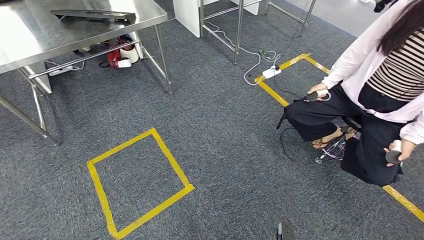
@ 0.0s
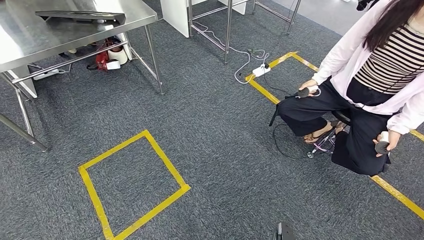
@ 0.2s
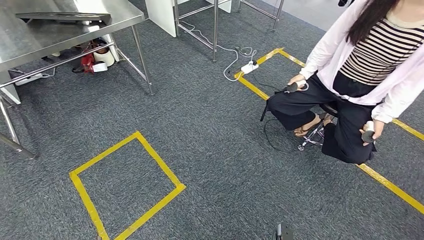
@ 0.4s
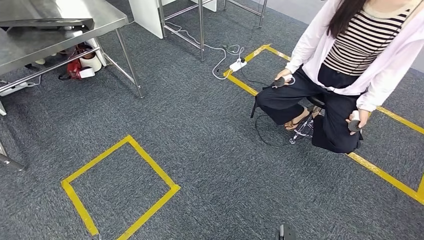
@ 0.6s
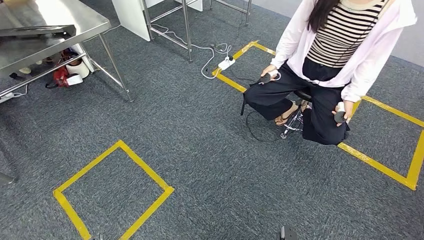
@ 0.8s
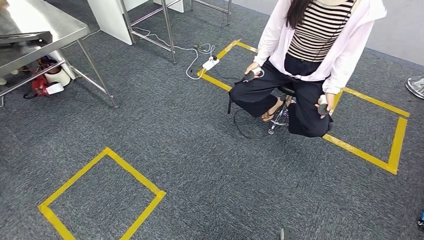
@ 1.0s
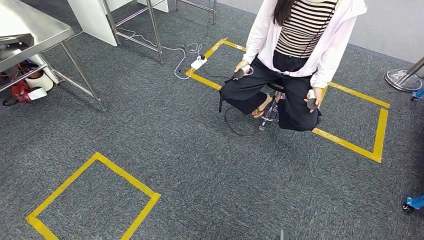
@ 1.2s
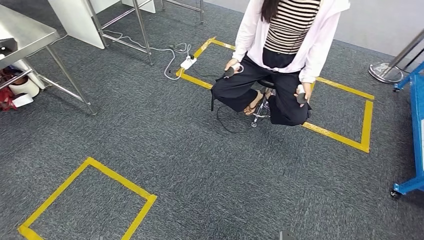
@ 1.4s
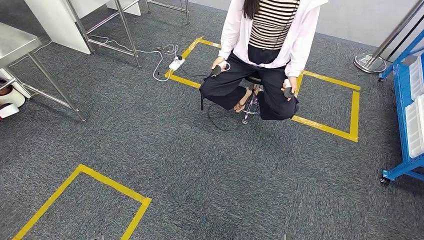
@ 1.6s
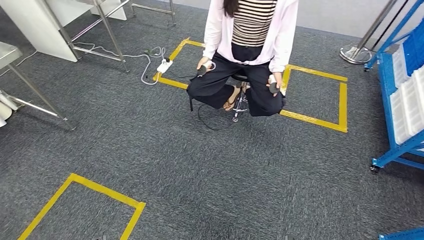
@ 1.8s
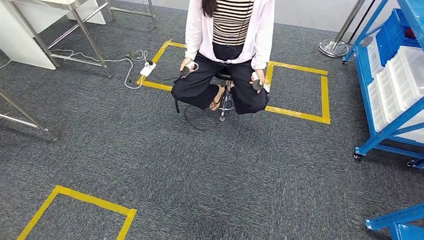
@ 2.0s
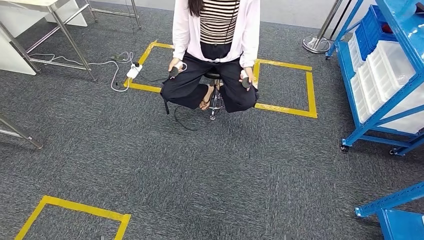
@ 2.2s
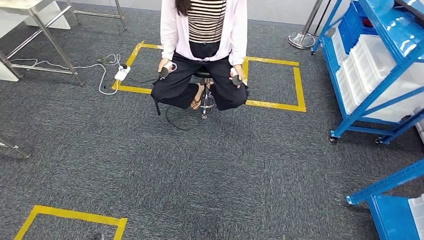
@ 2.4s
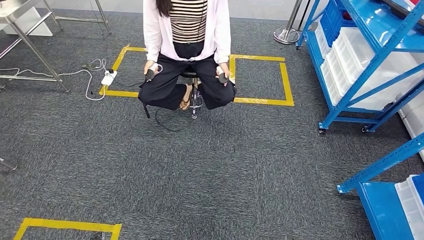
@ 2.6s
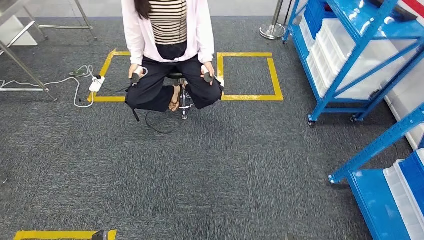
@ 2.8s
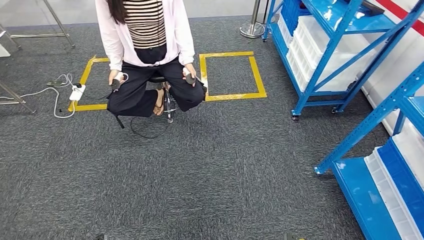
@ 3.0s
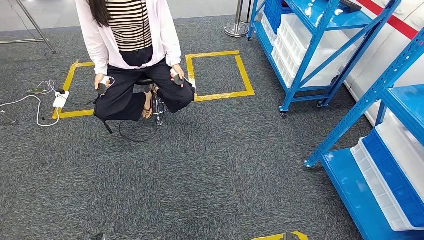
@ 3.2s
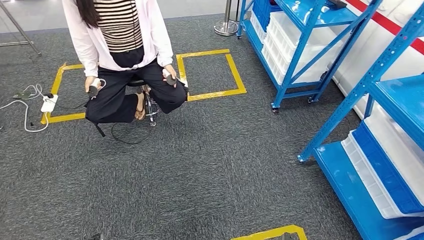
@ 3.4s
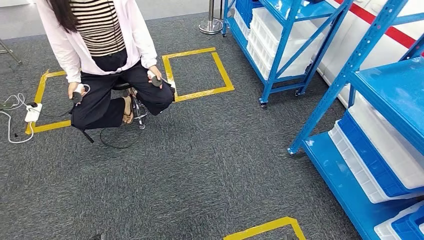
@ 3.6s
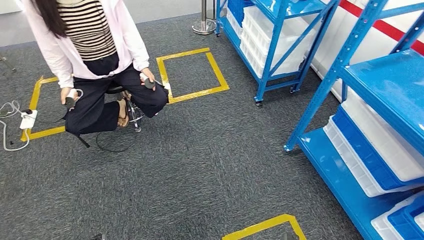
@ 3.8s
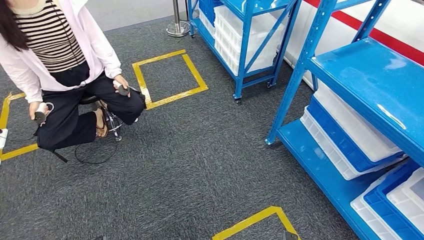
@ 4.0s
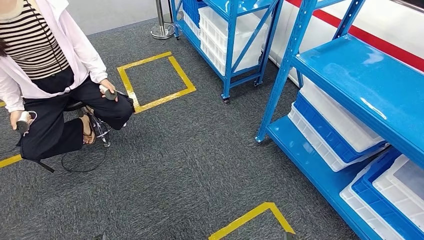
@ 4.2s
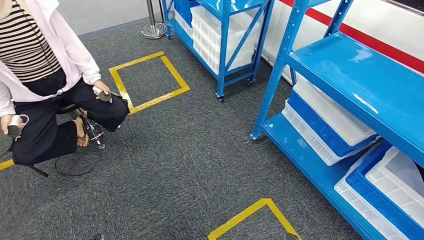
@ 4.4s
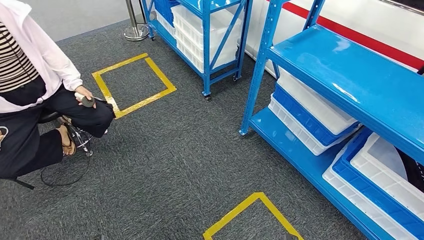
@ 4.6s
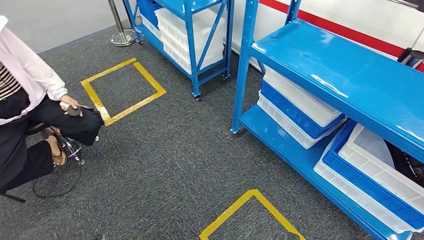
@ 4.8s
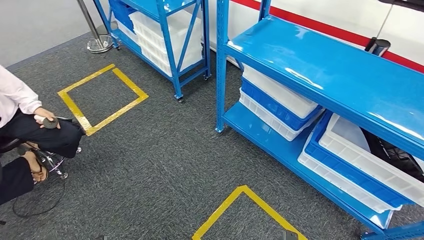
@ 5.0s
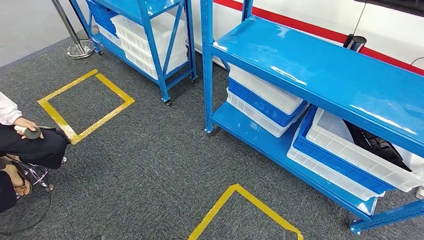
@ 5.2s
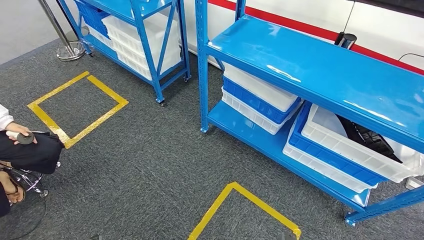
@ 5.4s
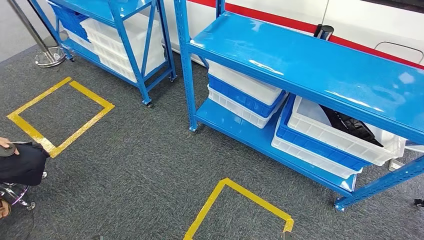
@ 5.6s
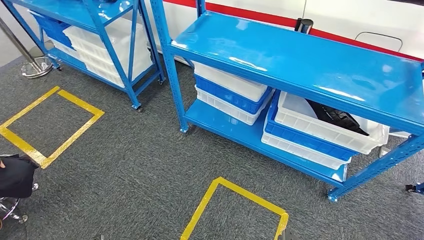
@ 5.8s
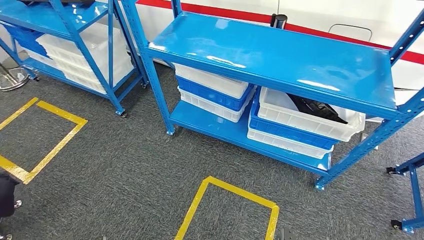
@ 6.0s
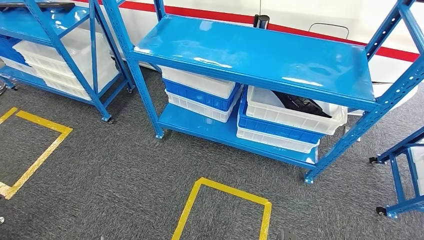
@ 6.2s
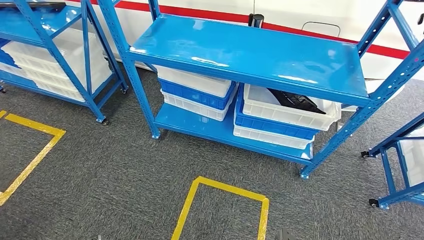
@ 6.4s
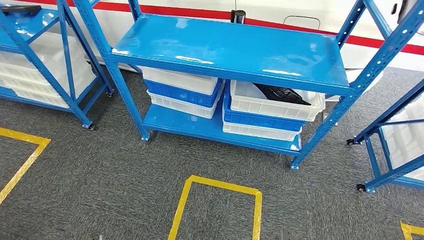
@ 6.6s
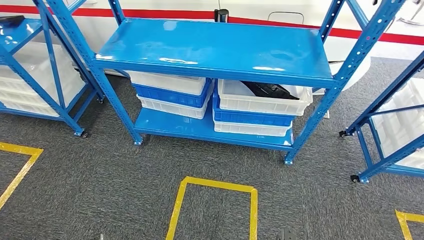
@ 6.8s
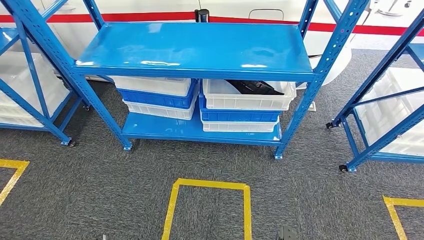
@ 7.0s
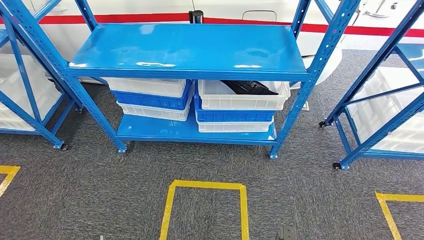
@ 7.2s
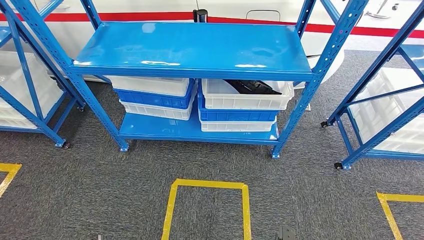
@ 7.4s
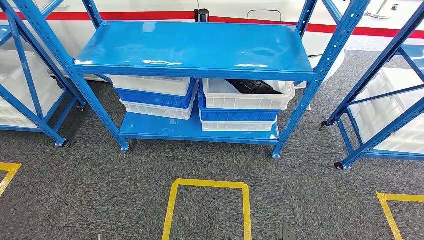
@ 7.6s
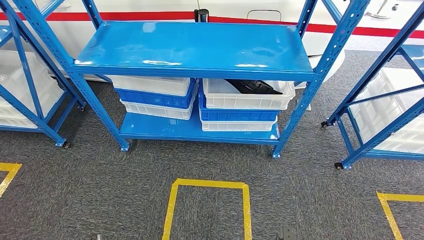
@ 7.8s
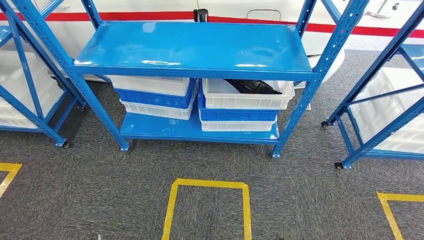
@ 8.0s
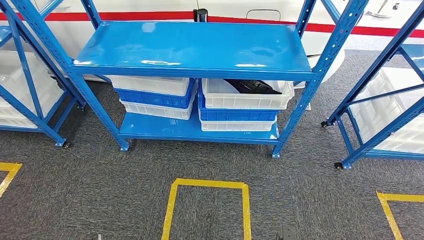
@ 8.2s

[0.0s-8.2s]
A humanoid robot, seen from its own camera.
Step, 0.0s to 8.2s: Move to the initial position of the shelf.

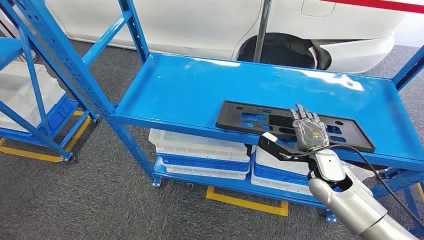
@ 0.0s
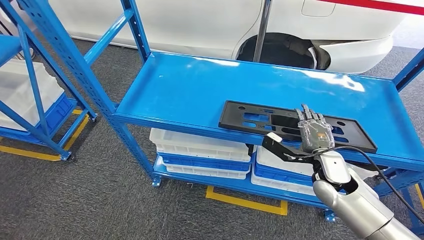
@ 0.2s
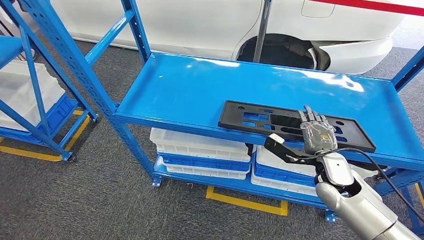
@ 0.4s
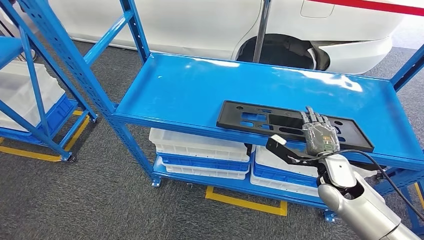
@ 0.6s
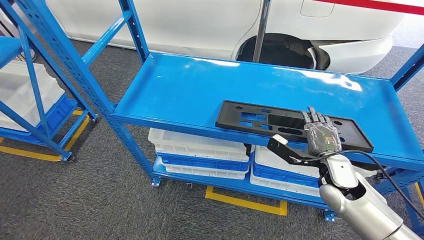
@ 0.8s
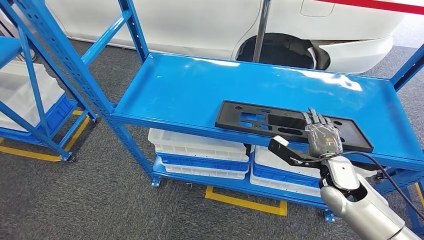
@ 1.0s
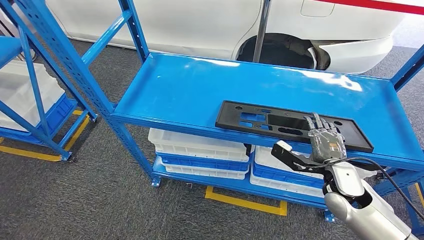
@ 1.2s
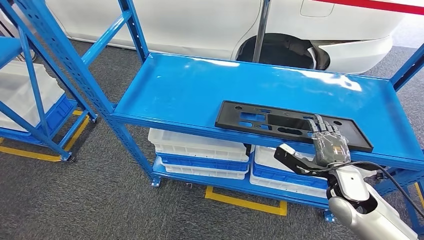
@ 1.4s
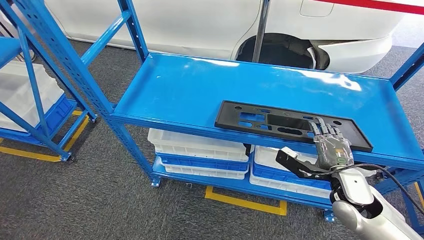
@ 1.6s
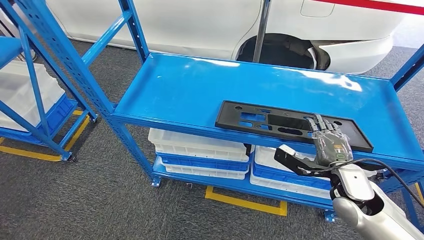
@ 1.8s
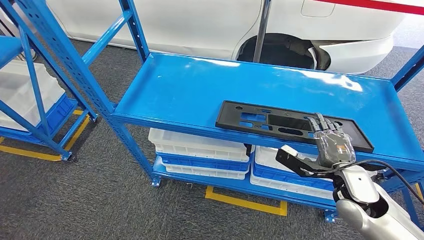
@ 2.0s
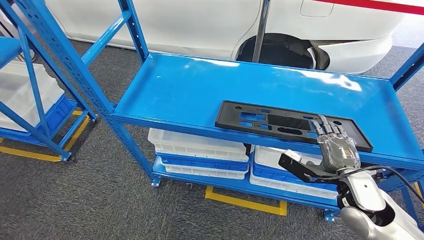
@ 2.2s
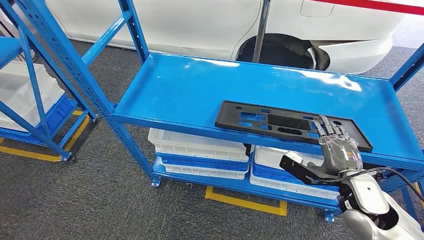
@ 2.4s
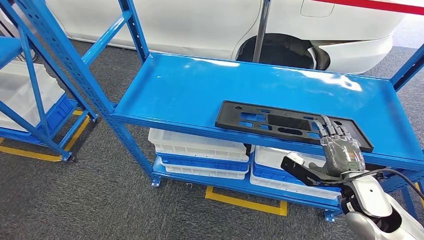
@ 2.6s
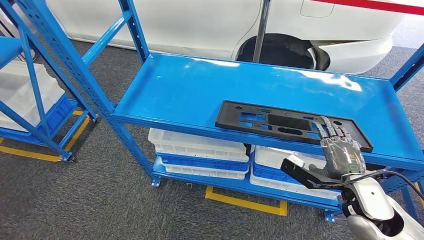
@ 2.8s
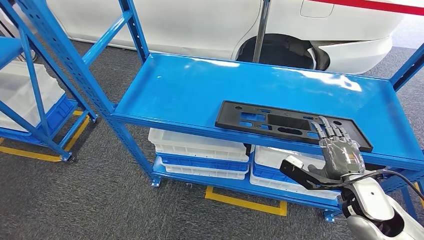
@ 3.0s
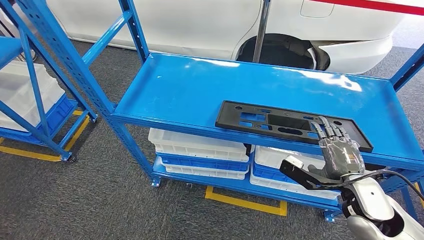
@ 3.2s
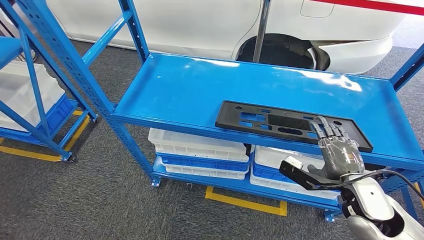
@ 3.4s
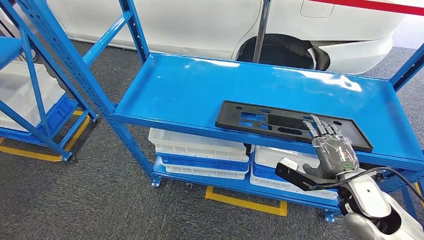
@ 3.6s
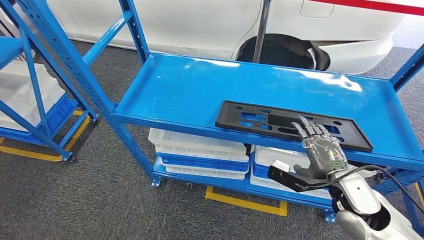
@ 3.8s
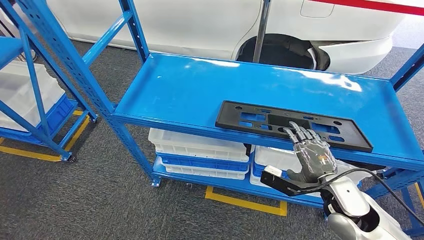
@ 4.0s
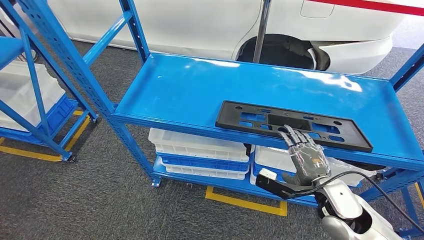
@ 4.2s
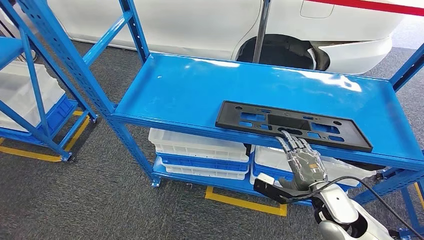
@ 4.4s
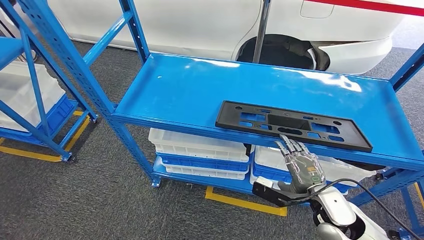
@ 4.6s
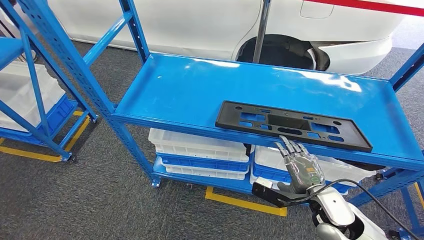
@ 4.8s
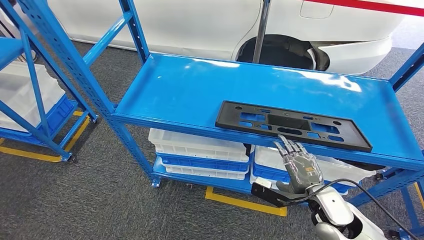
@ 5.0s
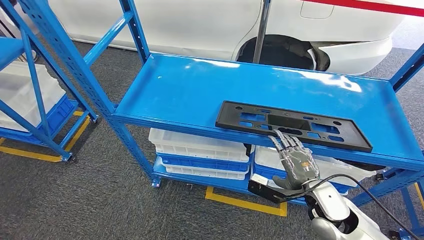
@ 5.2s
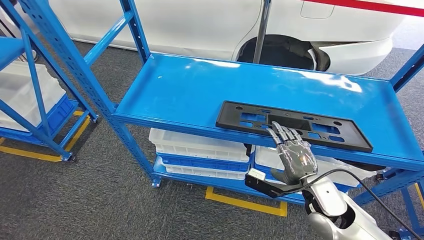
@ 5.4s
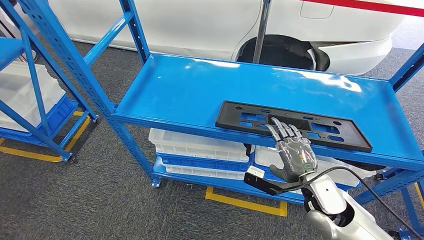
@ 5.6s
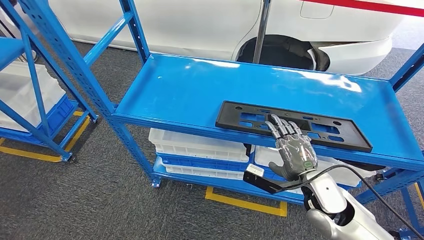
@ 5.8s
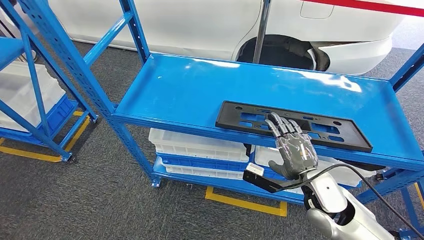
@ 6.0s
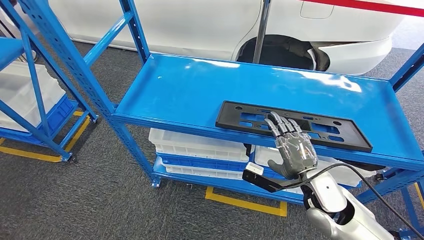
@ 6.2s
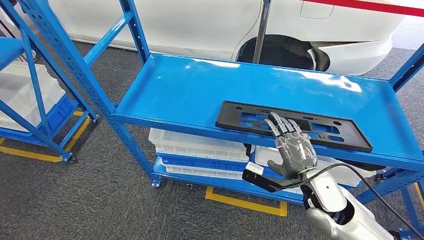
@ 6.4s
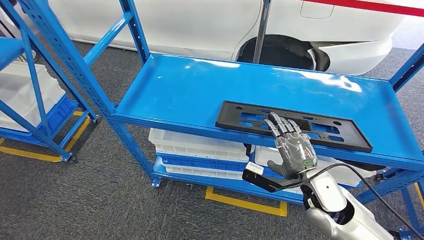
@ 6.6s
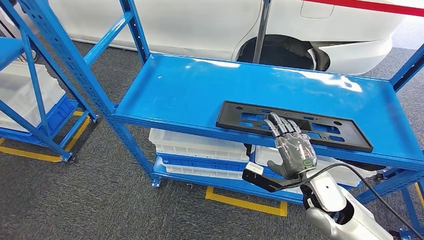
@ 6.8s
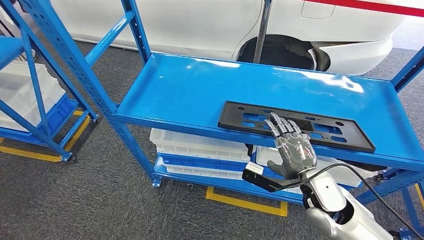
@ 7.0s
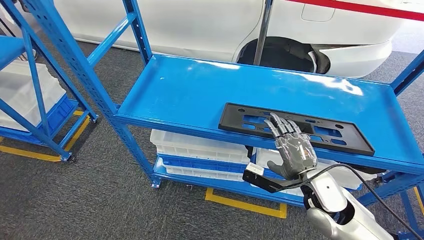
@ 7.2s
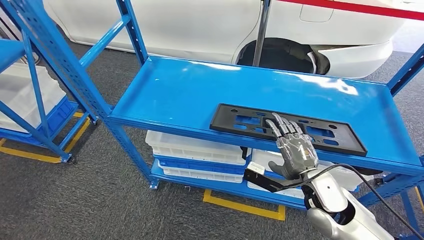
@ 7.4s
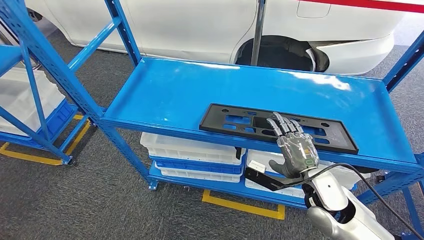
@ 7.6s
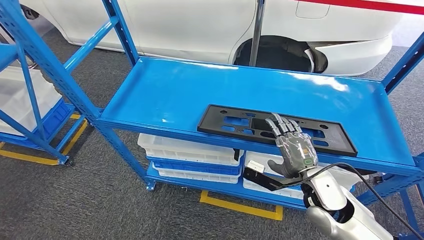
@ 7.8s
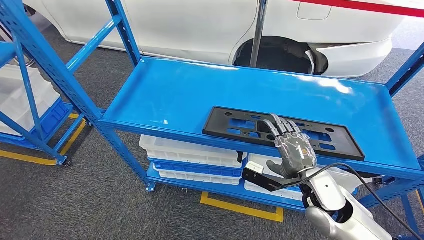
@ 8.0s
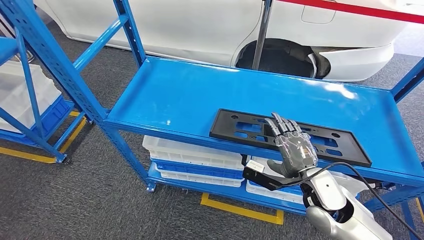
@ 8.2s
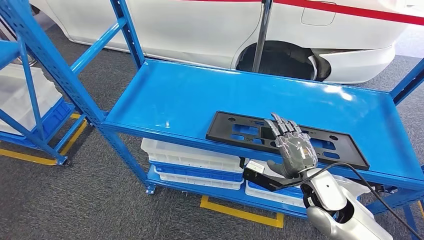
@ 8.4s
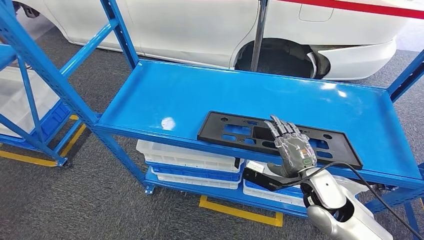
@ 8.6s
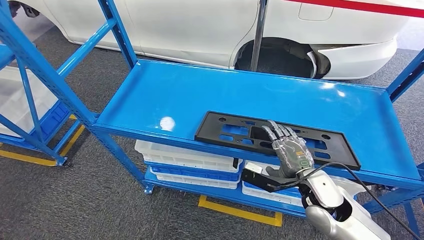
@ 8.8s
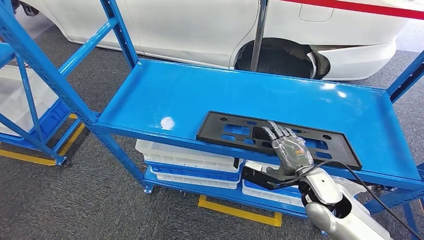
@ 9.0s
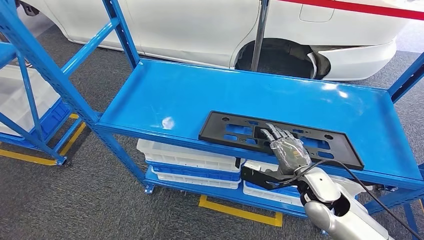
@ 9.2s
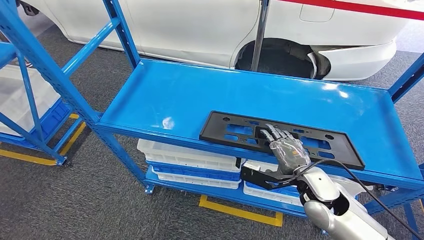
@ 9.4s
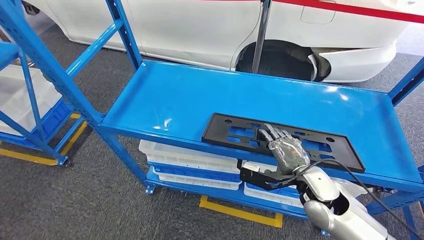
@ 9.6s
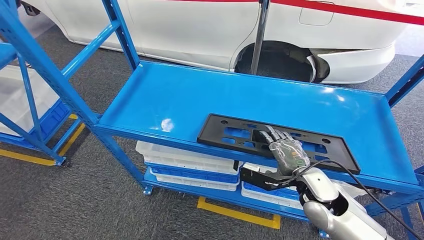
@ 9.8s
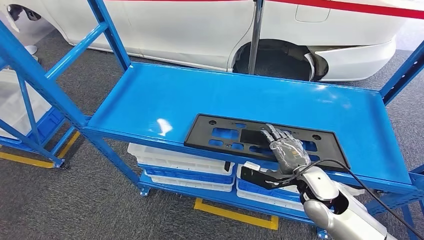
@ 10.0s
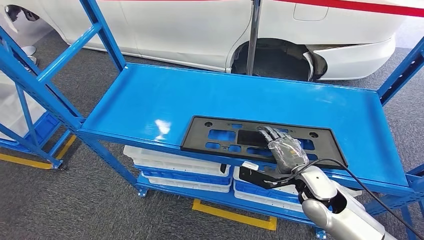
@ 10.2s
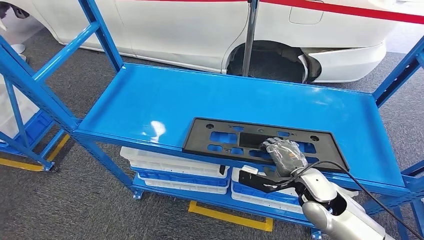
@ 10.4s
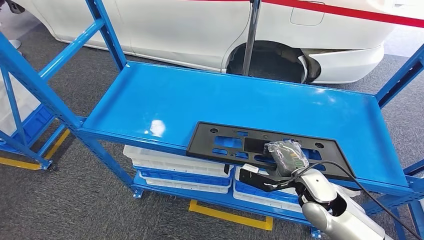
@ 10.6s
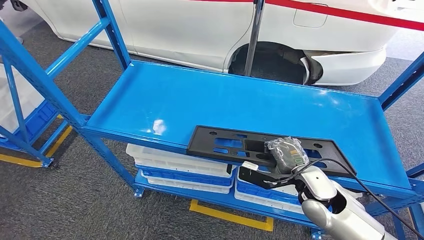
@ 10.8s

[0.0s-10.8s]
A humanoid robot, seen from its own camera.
1.6s to 3.0s: The hands make only small movements.
3.0s to 4.6s: The right hand changes place by some 5 cm.
4.6s to 6.2s: The hands move only a little.
